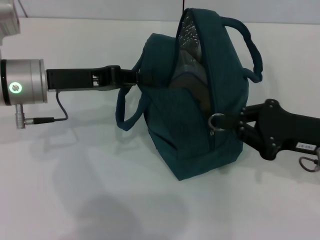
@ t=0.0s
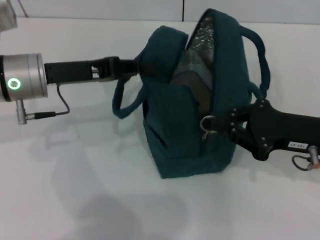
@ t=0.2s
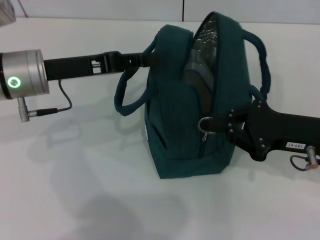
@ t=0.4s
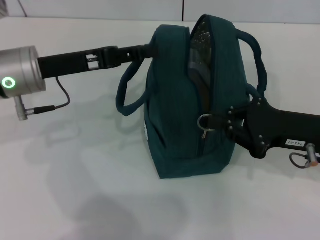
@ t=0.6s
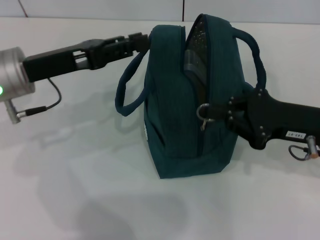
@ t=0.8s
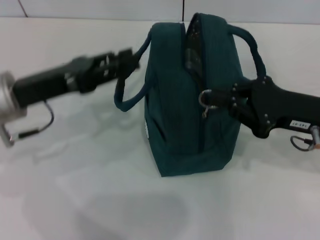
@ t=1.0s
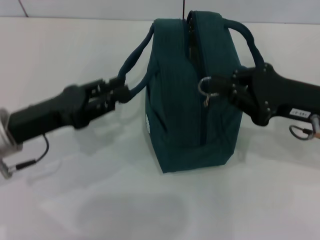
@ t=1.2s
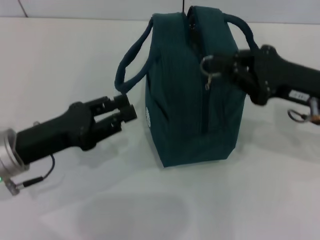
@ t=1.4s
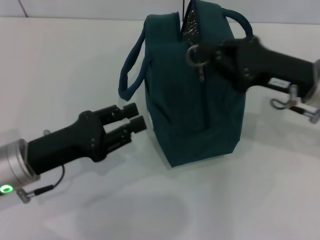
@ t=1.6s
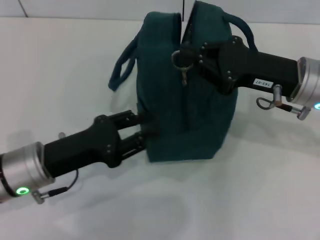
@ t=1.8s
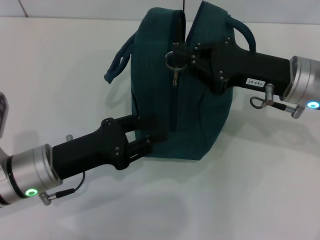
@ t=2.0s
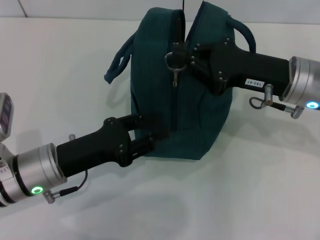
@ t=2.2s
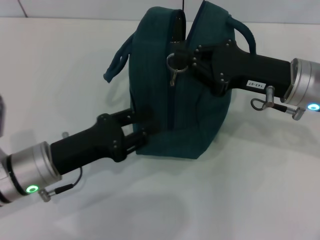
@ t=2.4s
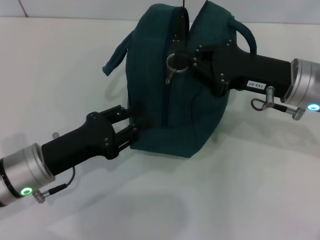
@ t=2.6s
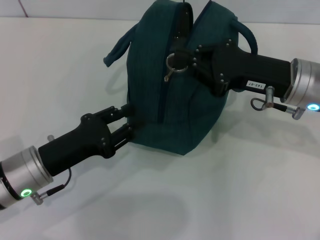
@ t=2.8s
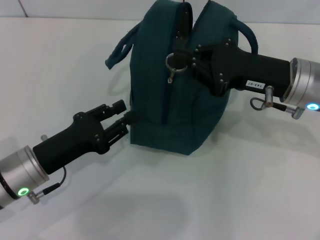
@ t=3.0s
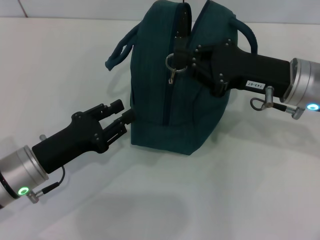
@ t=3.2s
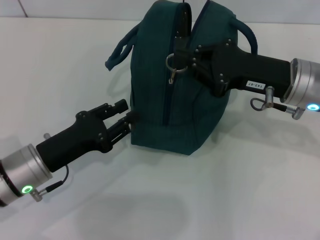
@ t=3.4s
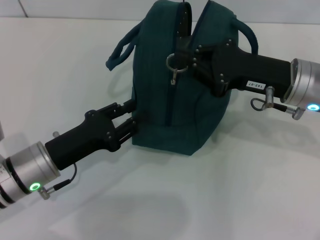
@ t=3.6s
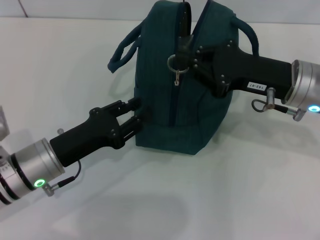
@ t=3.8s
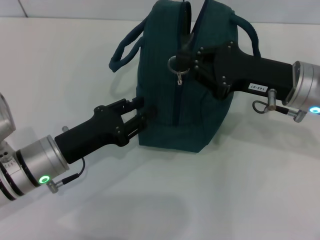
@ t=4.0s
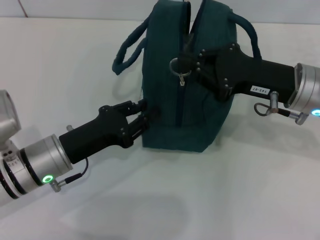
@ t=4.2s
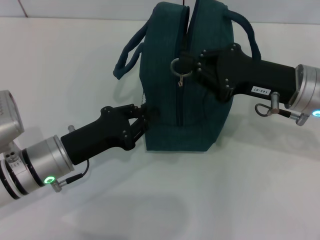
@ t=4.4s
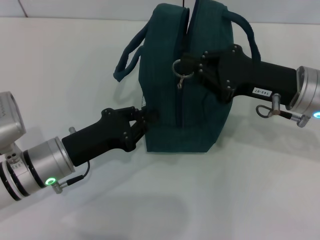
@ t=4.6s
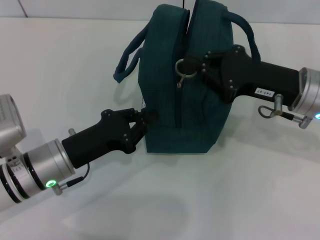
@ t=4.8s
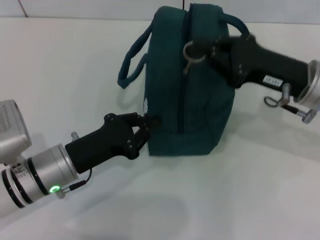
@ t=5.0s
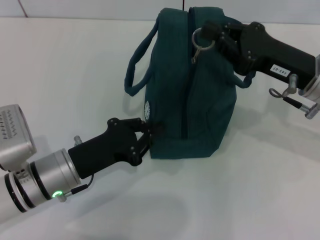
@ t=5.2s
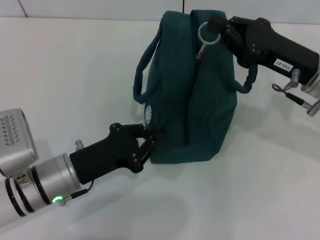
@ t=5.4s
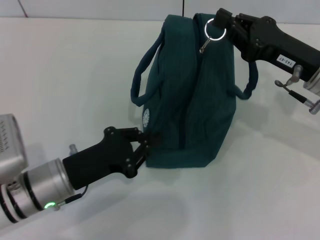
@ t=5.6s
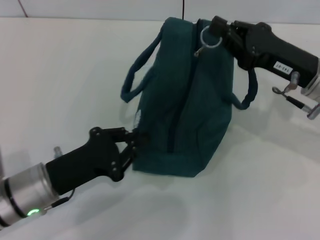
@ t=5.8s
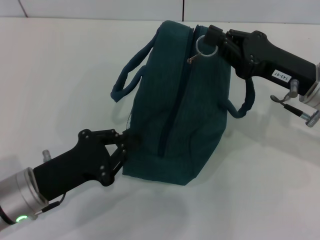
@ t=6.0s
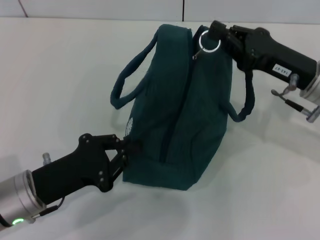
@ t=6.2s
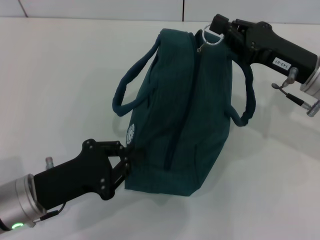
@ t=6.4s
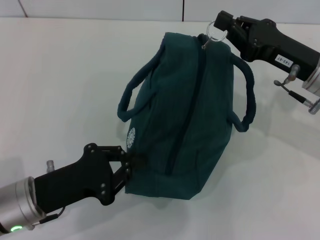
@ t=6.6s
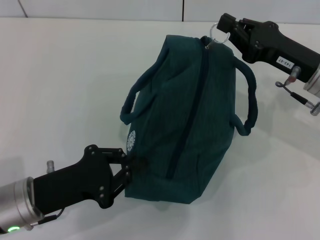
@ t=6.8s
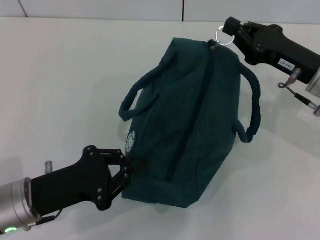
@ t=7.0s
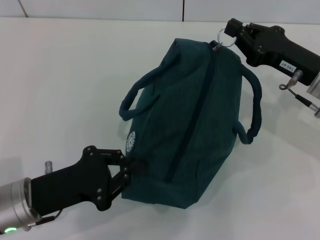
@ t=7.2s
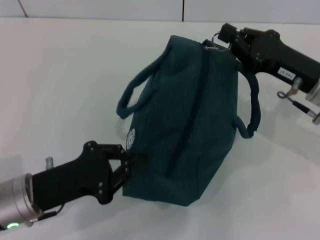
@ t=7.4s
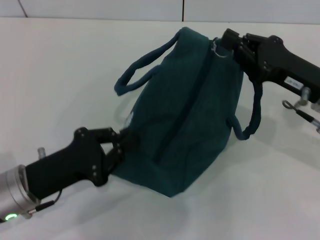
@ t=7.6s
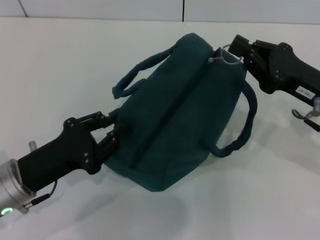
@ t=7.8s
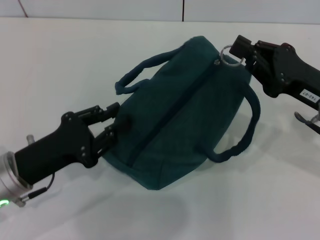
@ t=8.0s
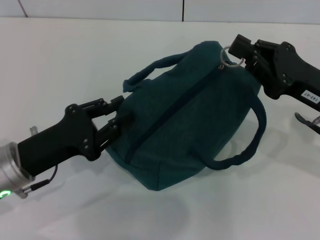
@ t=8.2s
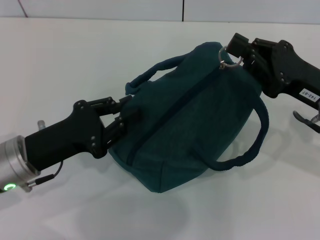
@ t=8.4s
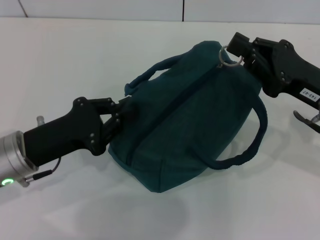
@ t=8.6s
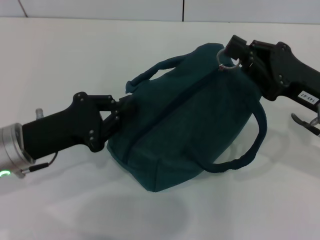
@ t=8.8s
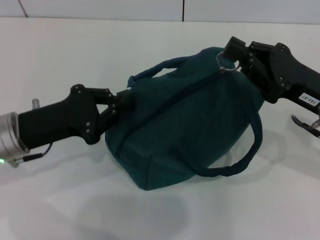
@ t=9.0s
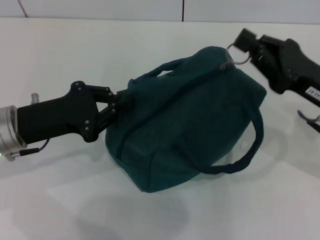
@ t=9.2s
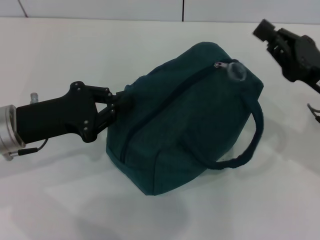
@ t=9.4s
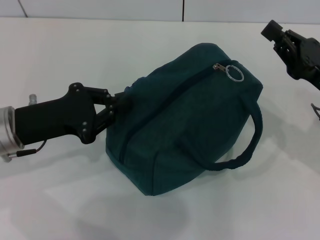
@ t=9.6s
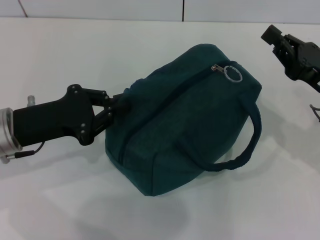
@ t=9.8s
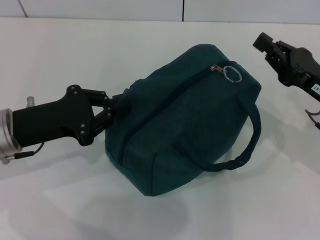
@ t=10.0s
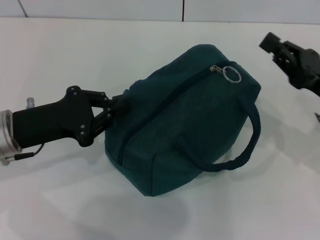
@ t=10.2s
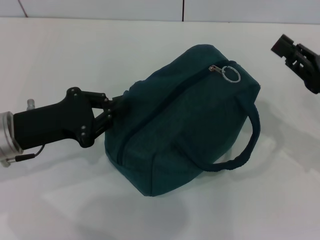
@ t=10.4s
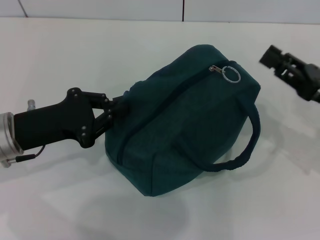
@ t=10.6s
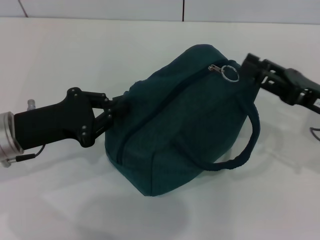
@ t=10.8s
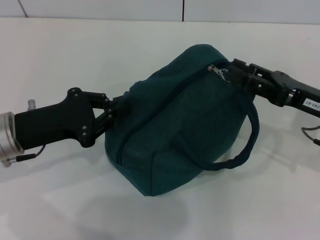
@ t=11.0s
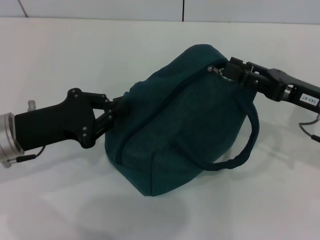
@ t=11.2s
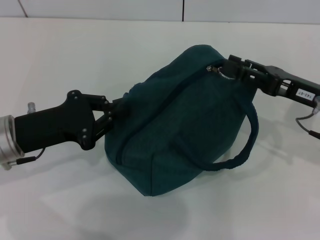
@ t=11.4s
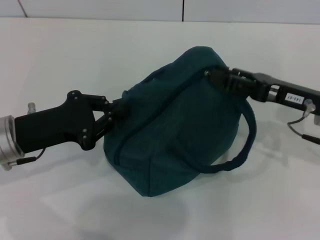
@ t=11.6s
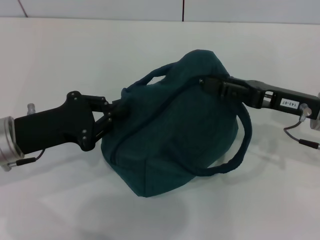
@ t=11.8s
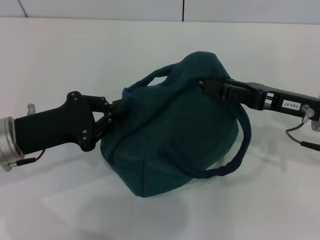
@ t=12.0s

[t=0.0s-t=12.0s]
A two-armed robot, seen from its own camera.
t=0.0s to t=1.6s: The right gripper shifts by approximately 10 cm; the left gripper travels backward and downward by approximately 10 cm, and opens its fingers.
t=1.6s to t=4.4s: The grippers stay close to where they were, moving slightly.
t=4.4s to t=6.0s: The left gripper shifts by some 5 cm, and closes its fingers.
t=6.0s to t=7.6s: The grippers stay close to where they were, moving slightly.
t=7.6s to t=9.0s: The left gripper heads forward, covering roughly 5 cm.
t=9.0s to t=10.4s: The right gripper goes about 5 cm to the right.
t=10.4s to t=12.0s: The right gripper travels to the left by some 5 cm, and opens.

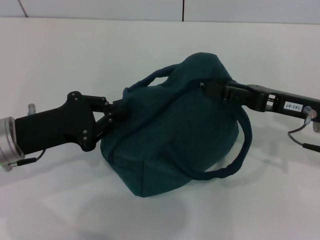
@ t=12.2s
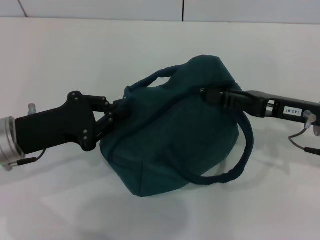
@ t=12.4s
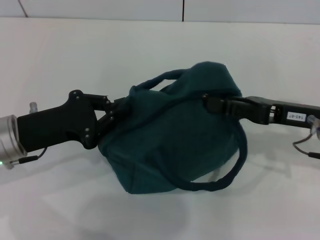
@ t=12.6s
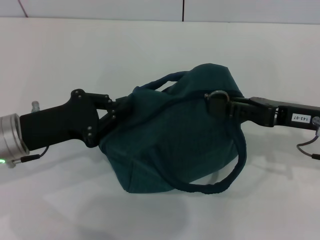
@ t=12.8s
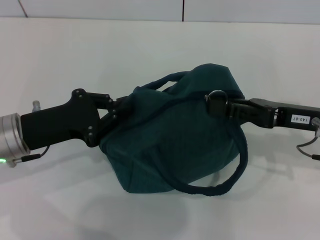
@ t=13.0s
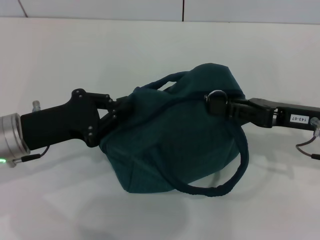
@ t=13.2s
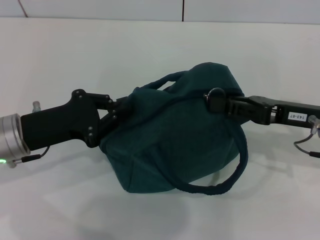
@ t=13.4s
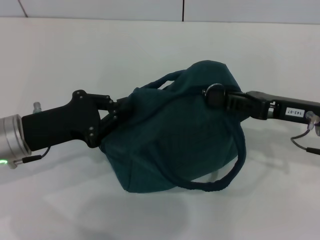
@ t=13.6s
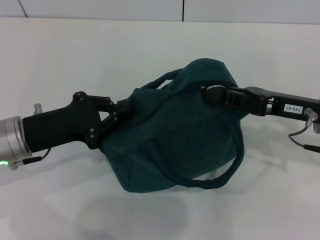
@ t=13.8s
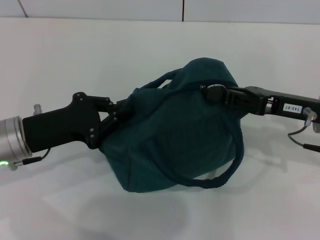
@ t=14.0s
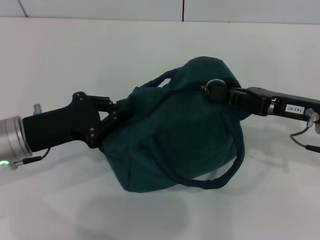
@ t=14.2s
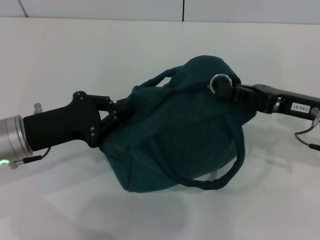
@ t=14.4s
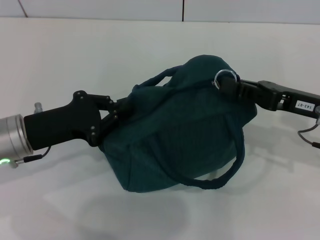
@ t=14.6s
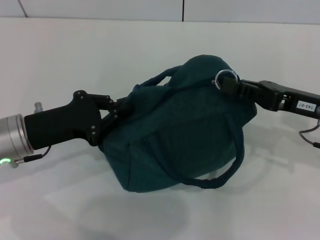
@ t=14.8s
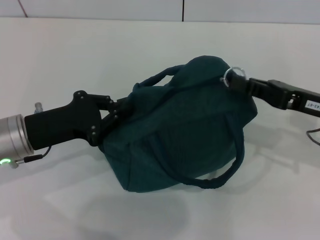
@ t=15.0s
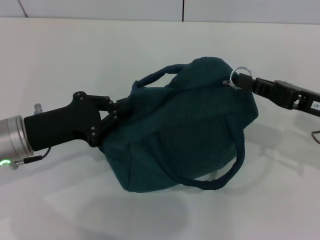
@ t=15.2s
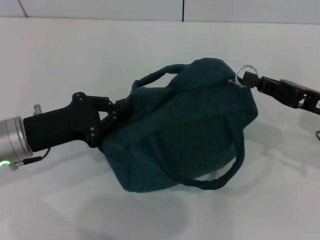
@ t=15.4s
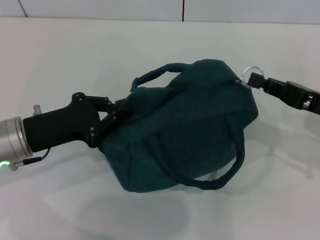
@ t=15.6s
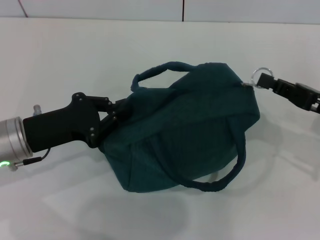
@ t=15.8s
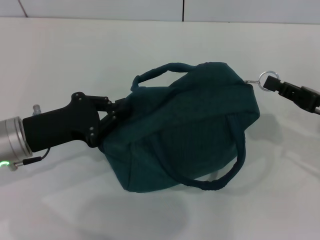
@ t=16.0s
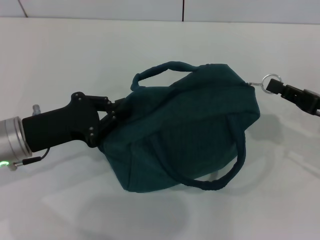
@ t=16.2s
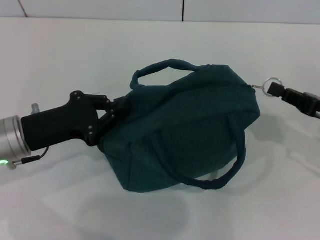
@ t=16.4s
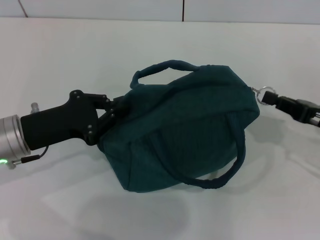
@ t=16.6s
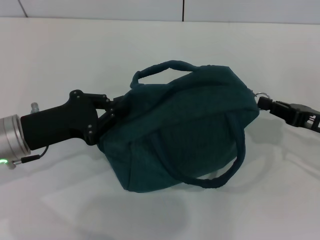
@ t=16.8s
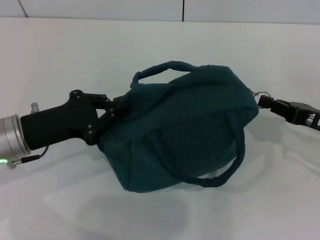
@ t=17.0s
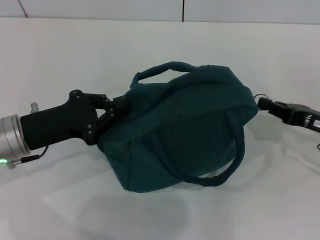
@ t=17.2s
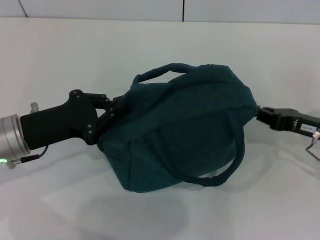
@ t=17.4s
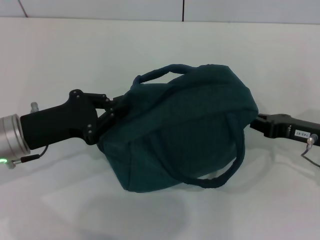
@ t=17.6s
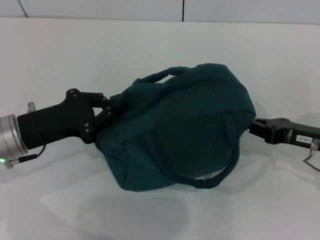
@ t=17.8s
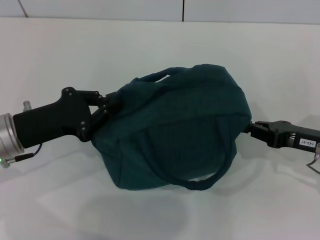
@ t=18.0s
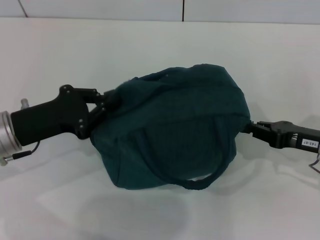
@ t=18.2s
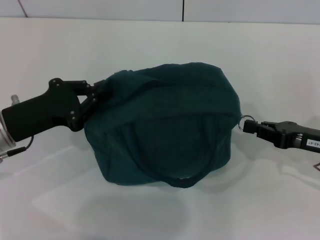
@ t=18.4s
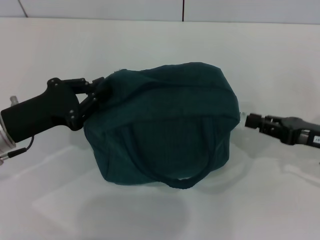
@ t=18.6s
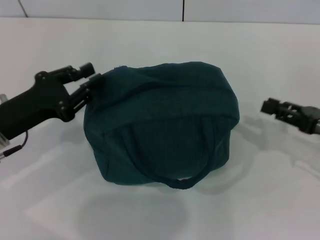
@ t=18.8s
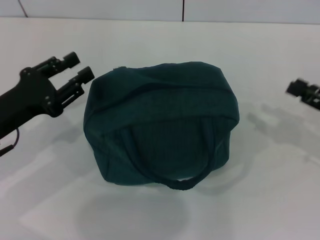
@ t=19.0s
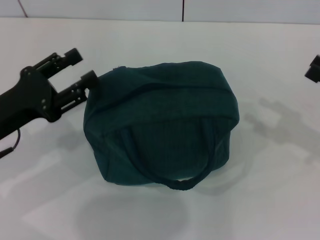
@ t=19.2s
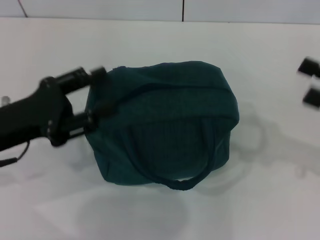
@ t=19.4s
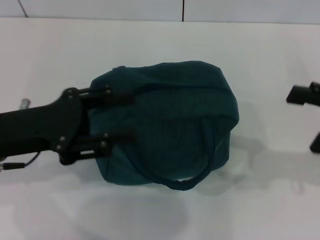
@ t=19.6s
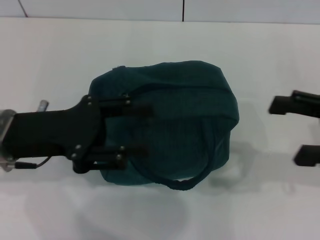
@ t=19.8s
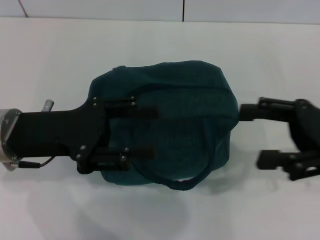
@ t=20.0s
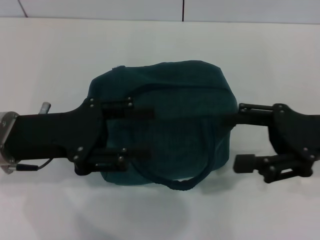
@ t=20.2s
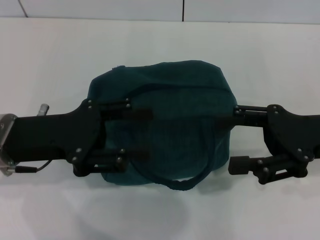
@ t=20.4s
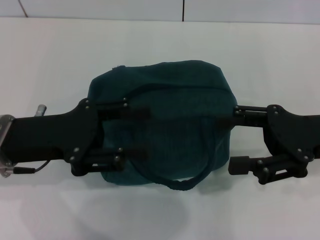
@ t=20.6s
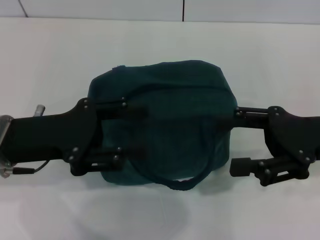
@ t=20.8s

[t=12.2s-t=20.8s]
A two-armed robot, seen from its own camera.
Step, t=12.2s to t=18.6s: Hold the lunch bag with your left hand.
t=12.2s to t=13.6s: The right gripper closes up.
t=13.6s to t=15.0s: The grippers stay close to where they were, moving slightly.
t=15.0s to t=16.6s: The right gripper moves some 5 cm.
t=16.6s to t=18.0s: The grippers move only a little.
t=18.0s to t=19.4s: The left gripper opens its fingers. The right gripper travels upward and to the right by approximately 10 cm, and opens up.
t=19.4s to t=20.8s: The right gripper goes about 10 cm to the left.
